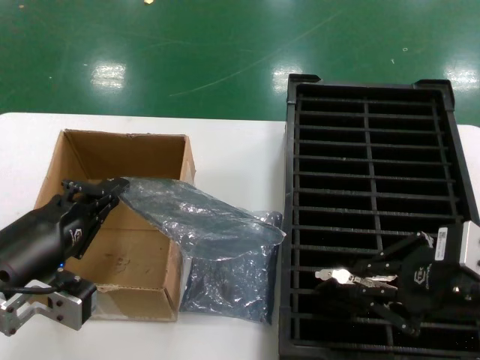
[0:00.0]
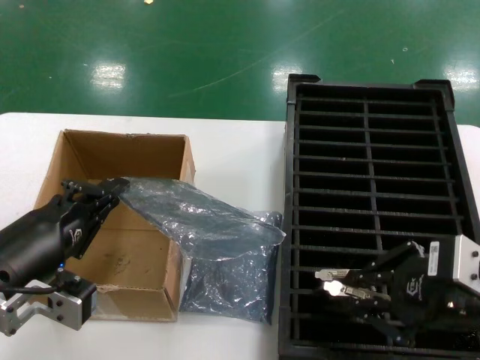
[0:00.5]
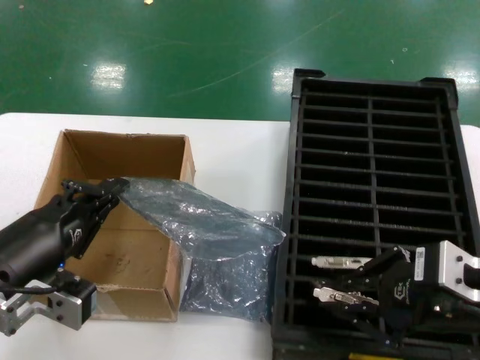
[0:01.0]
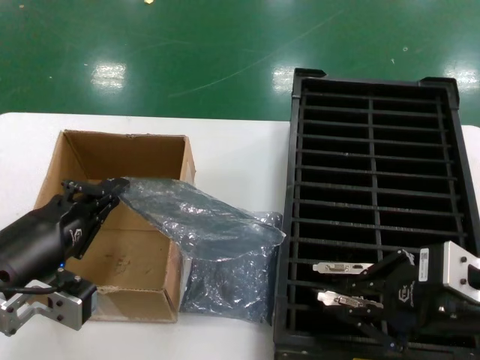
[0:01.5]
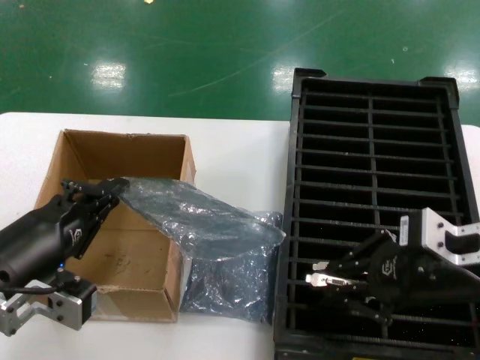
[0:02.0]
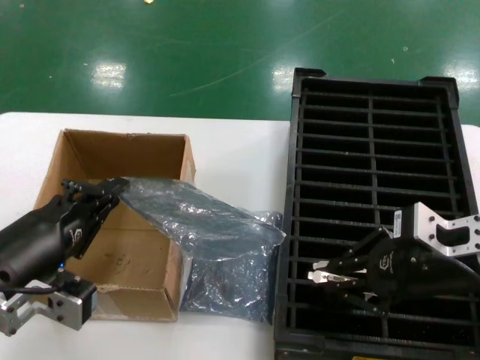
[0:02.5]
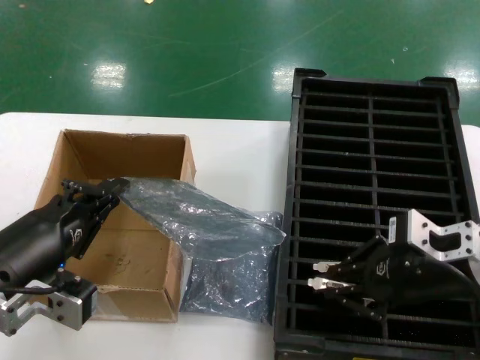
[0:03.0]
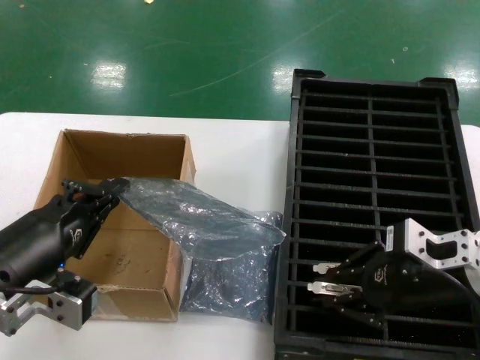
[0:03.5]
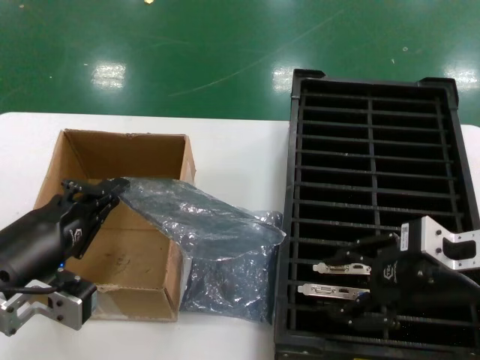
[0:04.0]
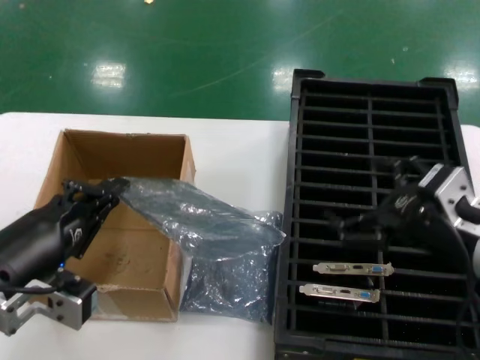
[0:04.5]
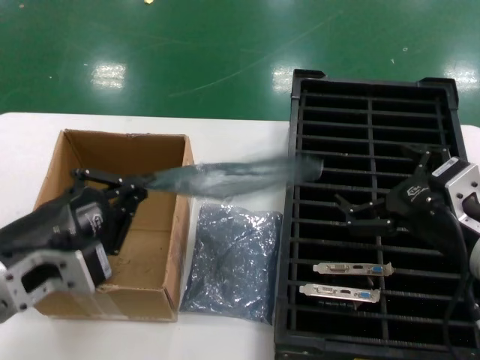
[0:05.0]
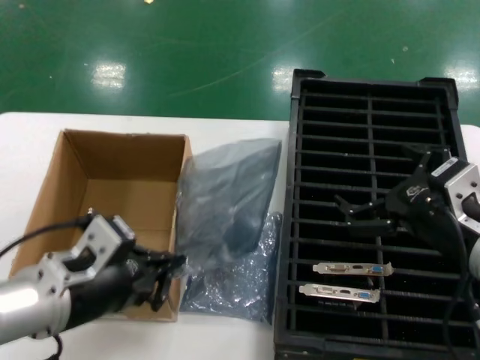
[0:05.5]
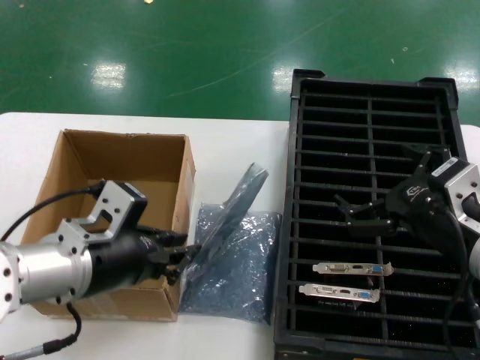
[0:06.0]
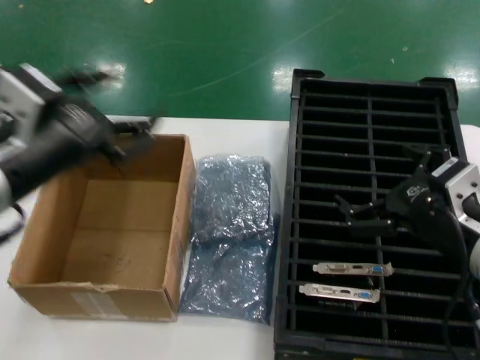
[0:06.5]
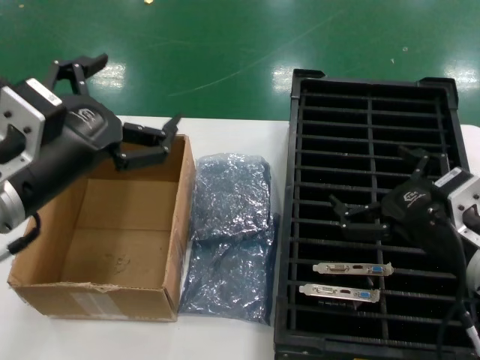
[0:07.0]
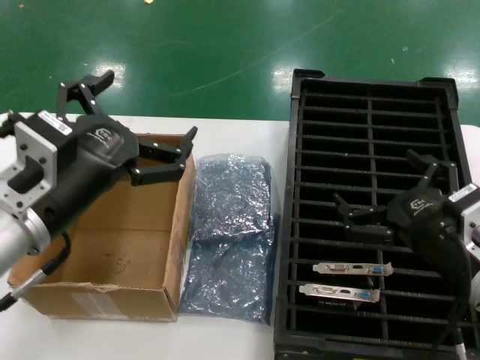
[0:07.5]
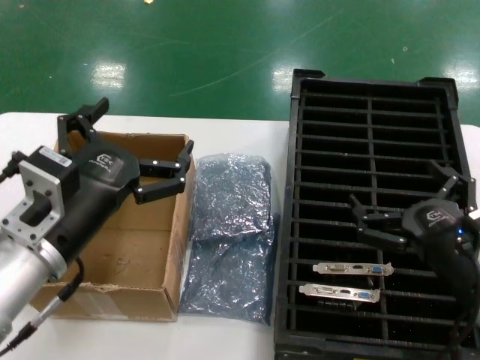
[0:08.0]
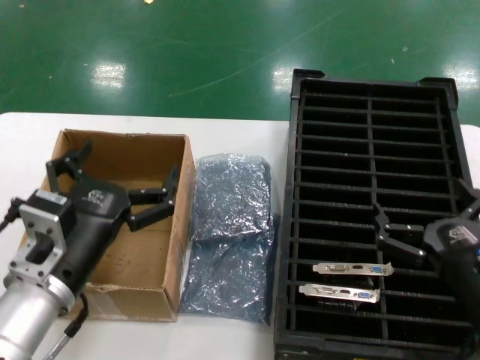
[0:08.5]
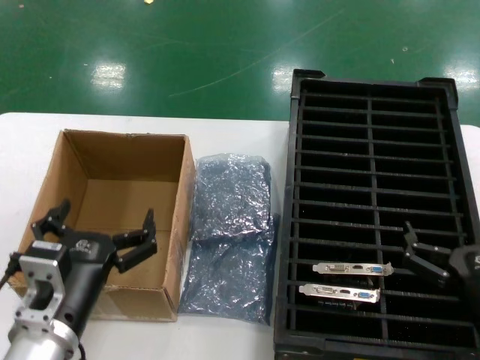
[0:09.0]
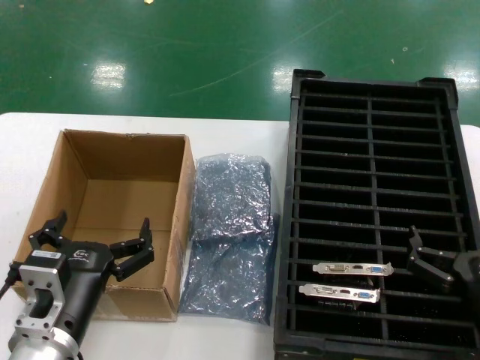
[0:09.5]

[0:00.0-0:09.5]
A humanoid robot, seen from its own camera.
Task of the whole recording: take out graphics card from box remove packaging put into black container.
Step, 0:00.0 to 0:04.0: Place the hard disk in the hard disk enclosure.
Step, 0:04.5 to 0:06.5: Place the down the bag.
0:00.0 to 0:02.0: The right hand moves about 5 cm.
0:07.5 to 0:09.5: The right hand moves downward and backward, roughly 10 cm. Meanwhile the left hand heads downward, covering approximately 15 cm.
